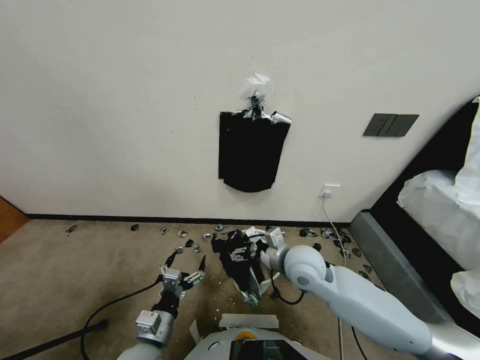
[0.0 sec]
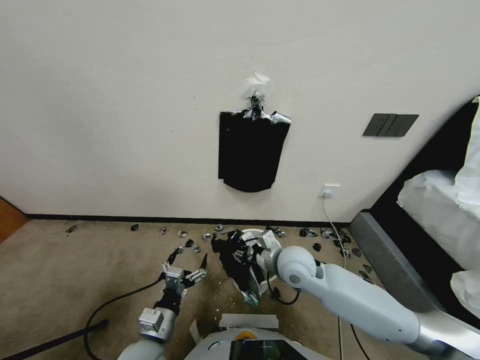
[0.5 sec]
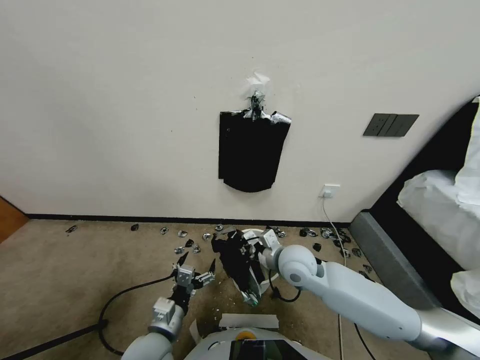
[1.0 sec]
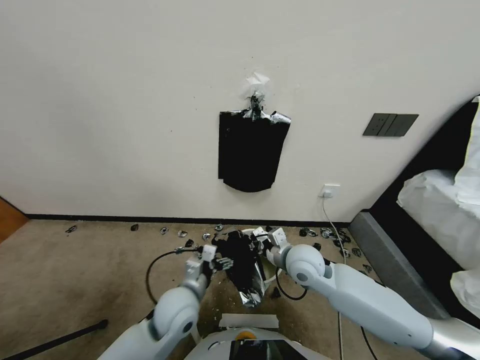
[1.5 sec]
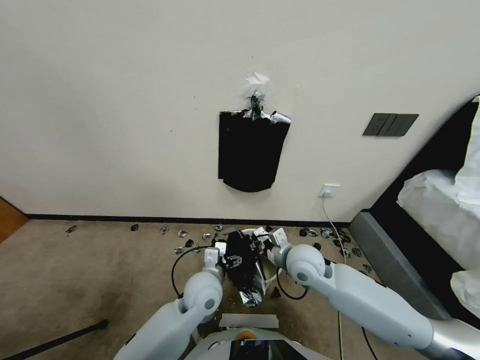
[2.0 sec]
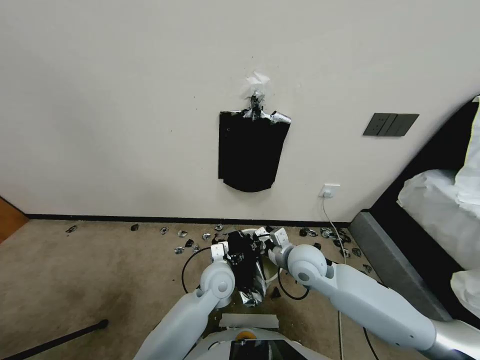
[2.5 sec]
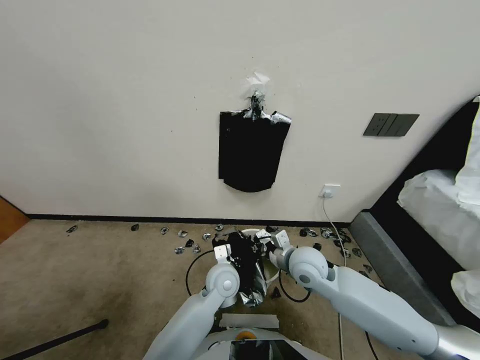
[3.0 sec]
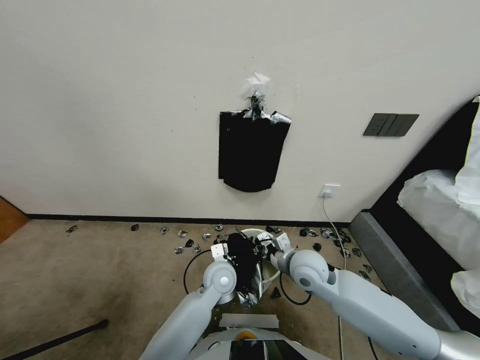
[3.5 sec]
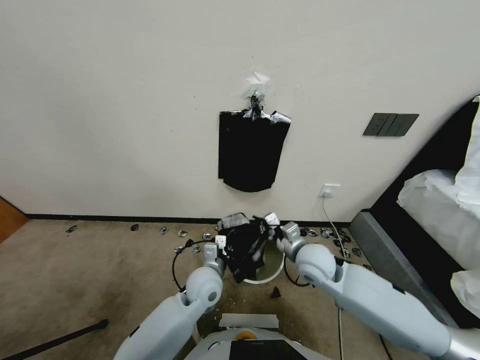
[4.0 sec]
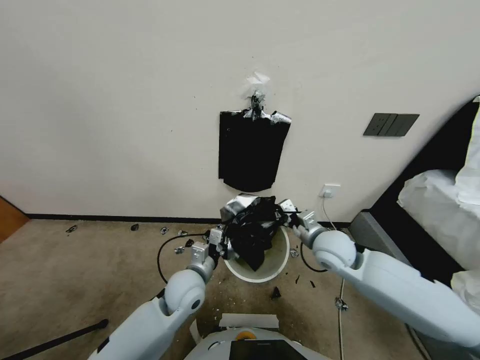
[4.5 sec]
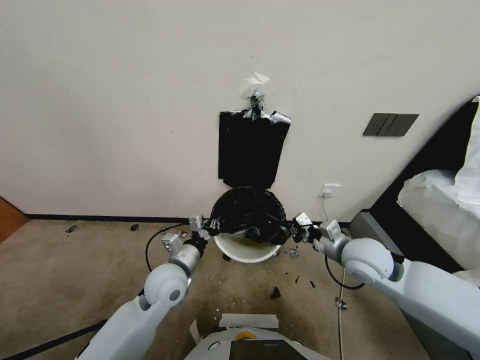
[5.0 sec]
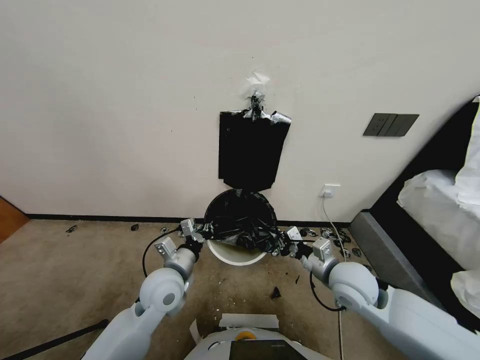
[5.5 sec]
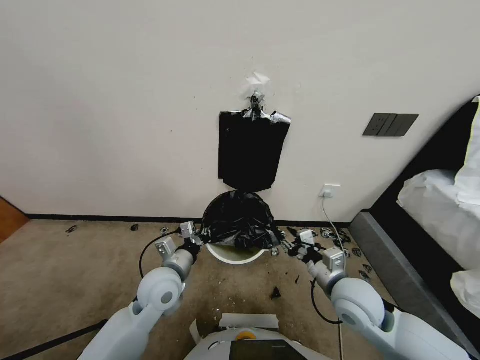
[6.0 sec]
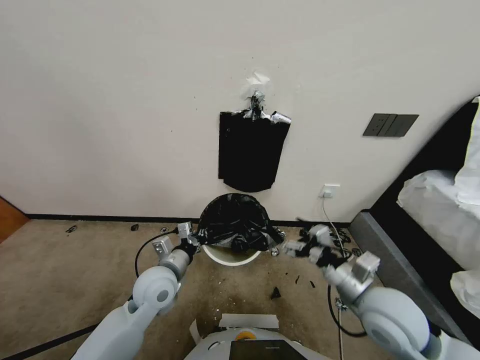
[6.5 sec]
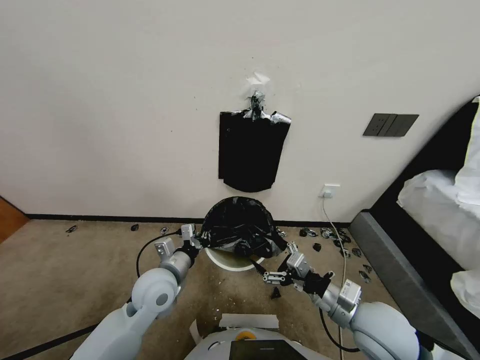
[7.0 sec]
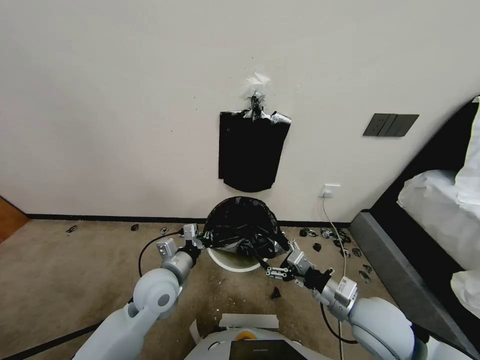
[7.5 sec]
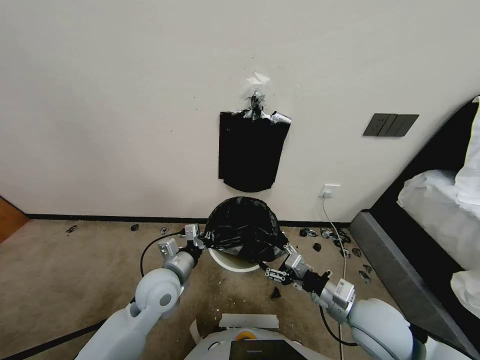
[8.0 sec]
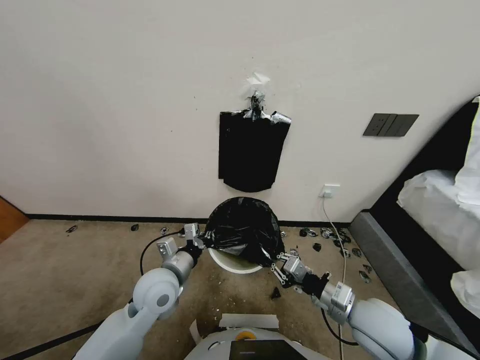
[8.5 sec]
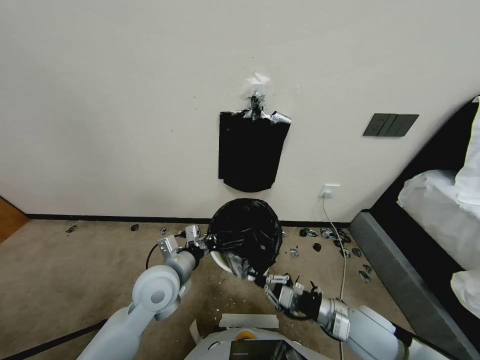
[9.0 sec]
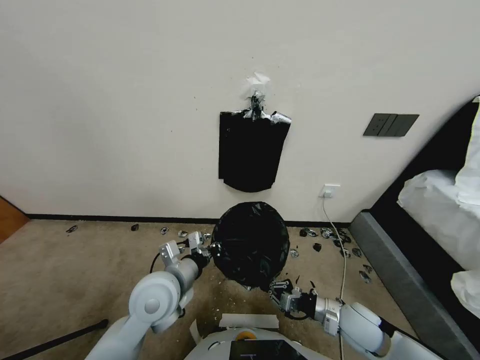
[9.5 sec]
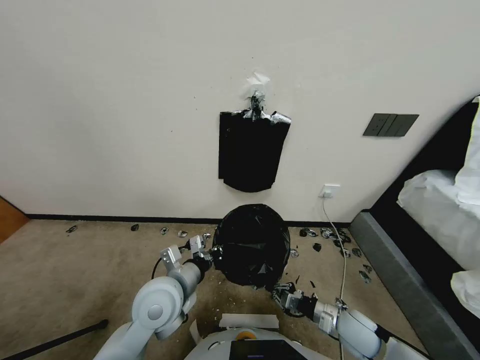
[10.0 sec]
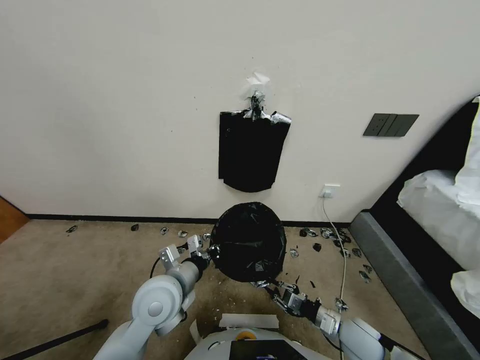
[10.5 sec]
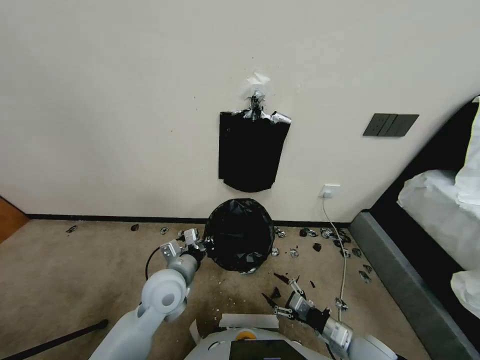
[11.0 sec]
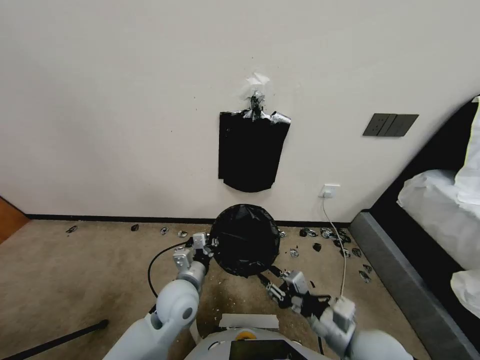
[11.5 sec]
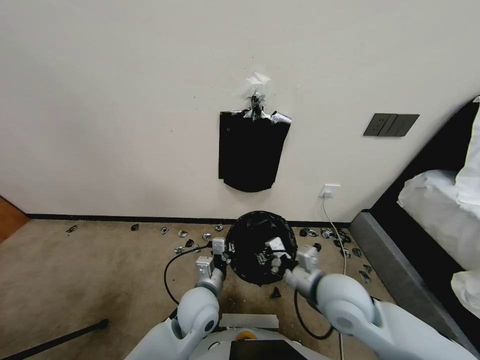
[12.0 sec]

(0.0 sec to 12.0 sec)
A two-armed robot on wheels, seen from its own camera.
Task of the whole recording: Place a trash bag onto the trash bin.
0.0 sec - 2.0 sec: The right gripper closes up. Meanwhile the left gripper goes some 20 cm forward and to the right.
2.0 sec - 4.0 sec: The left gripper closes.
4.0 sec - 6.0 sec: The right gripper is displaced backward and to the right by about 10 cm, and opens its fingers; the left gripper travels to the left by roughly 10 cm.
6.0 sec - 8.0 sec: The right gripper opens, then closes once more.
8.0 sec - 10.0 sec: The right gripper heads downward, covering some 15 cm, and closes, while the left gripper ends up some 5 cm from where it was.
10.0 sec - 12.0 sec: The right gripper is displaced upward and to the left by about 20 cm, and opens and closes again; the left gripper travels downward and to the right by roughly 10 cm.

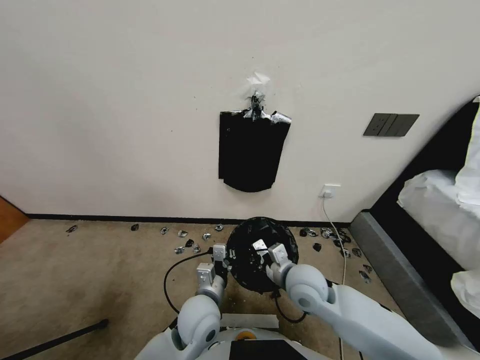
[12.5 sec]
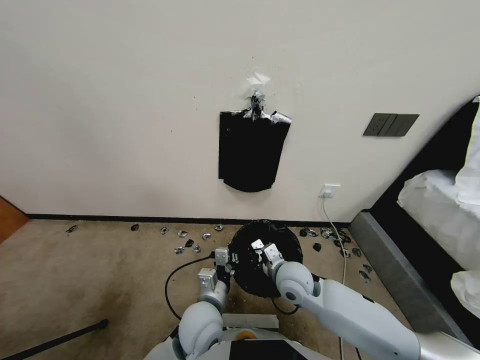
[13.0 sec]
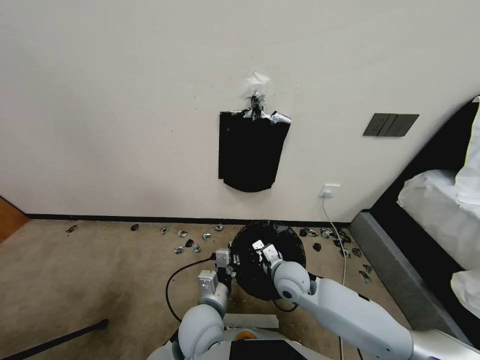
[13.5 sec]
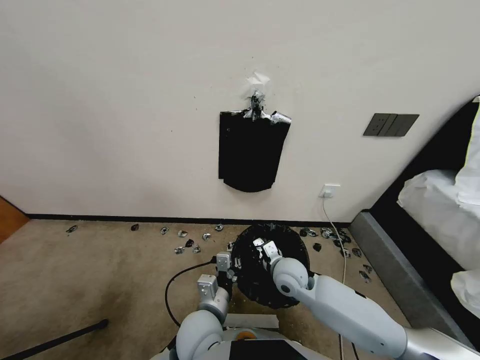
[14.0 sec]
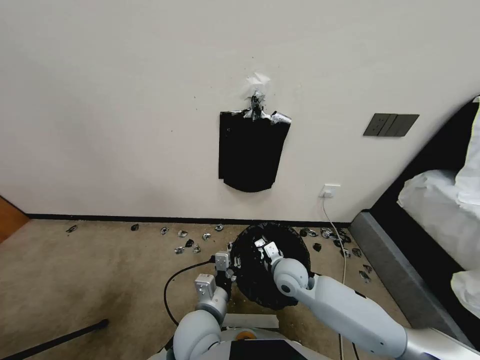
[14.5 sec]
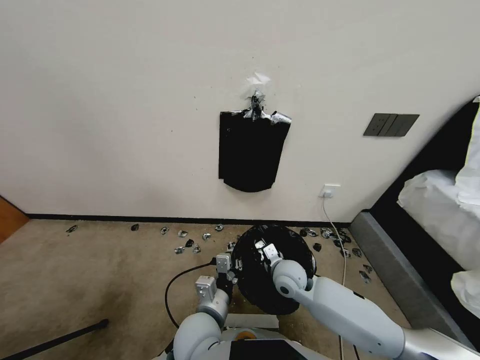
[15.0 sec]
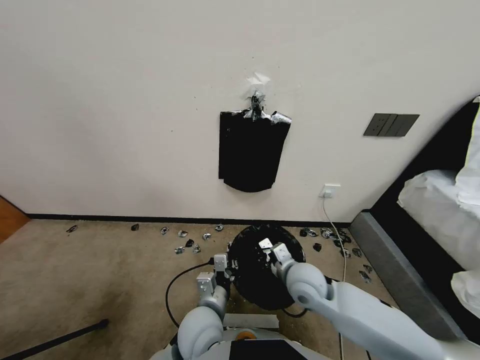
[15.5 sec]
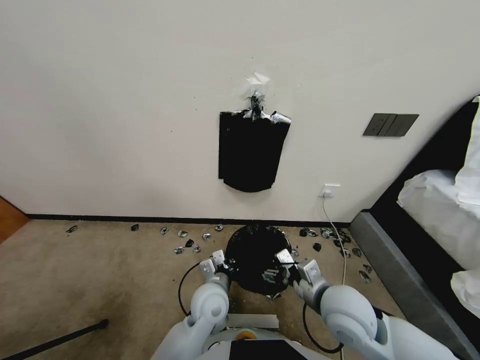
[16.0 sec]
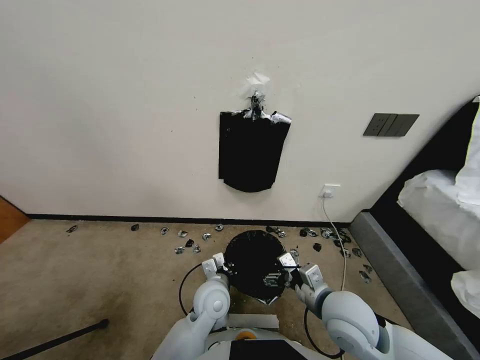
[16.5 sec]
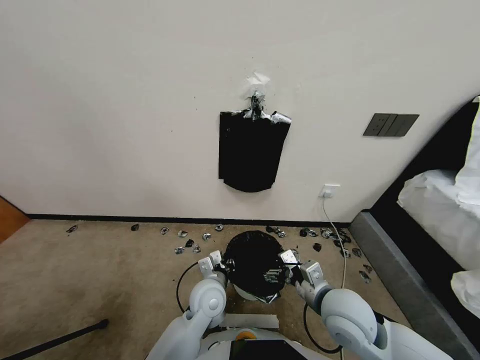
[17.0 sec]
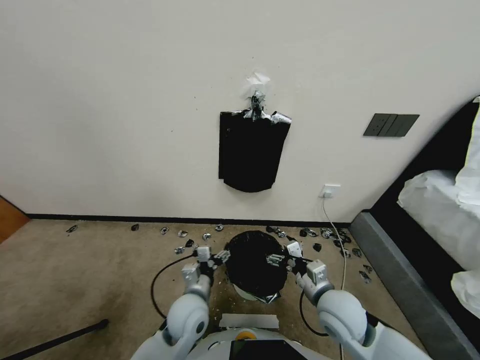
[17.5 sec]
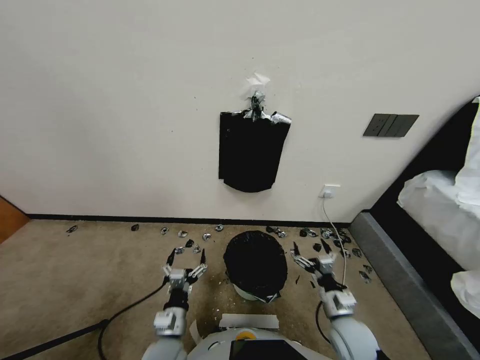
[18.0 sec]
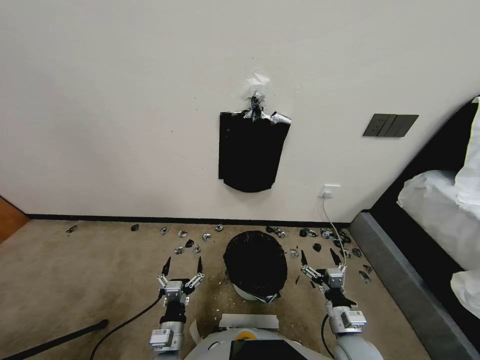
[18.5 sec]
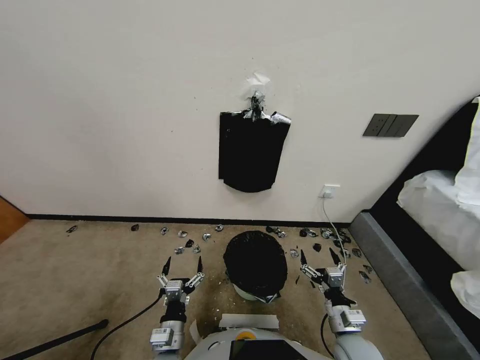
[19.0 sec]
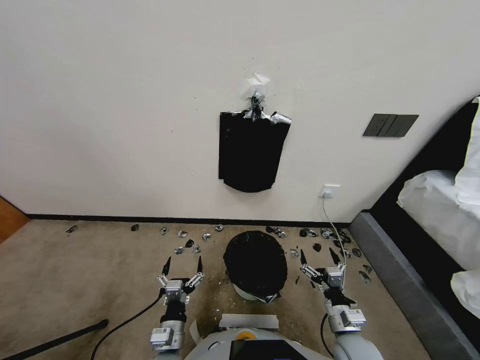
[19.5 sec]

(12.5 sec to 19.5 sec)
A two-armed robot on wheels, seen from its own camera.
Task of the whole recording: Place a trash bag onto the trash bin.
12.5 sec - 14.5 sec: The right gripper shifts approximately 5 cm downward.
14.5 sec - 16.0 sec: The right gripper is displaced backward, upward and to the right by approximately 15 cm, and opens up. Meanwhile the left gripper moves forward, roughly 10 cm.
16.0 sec - 17.5 sec: The right gripper goes about 5 cm downward, while the left gripper shifts approximately 5 cm to the left, and opens its fingers.
17.5 sec - 19.5 sec: The right gripper moves downward and backward, some 10 cm. Meanwhile the left gripper is displaced backward and downward by about 10 cm.
